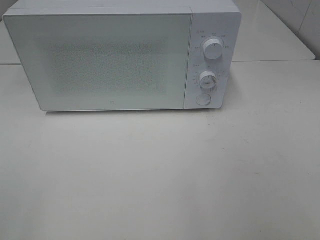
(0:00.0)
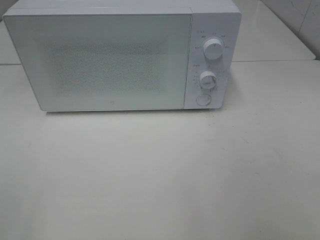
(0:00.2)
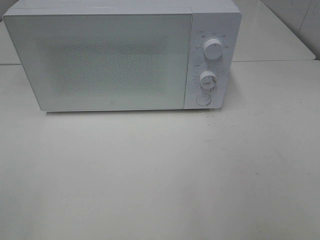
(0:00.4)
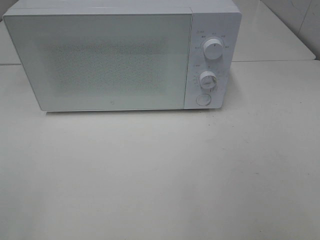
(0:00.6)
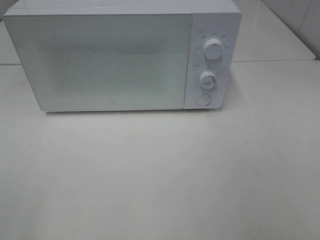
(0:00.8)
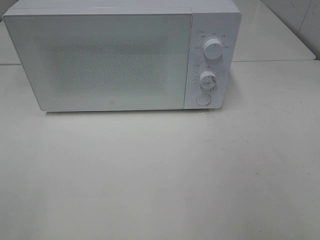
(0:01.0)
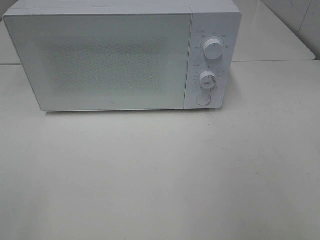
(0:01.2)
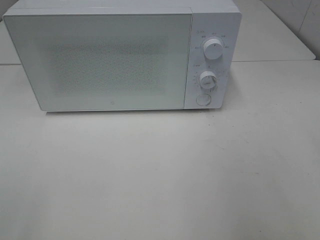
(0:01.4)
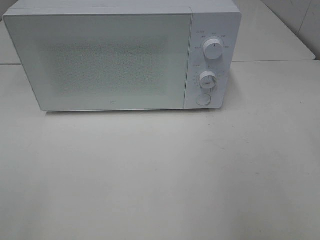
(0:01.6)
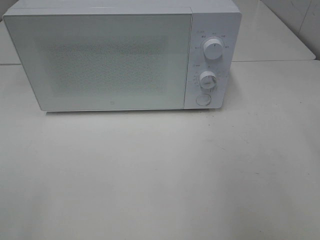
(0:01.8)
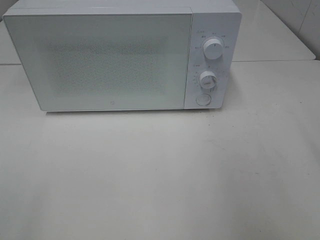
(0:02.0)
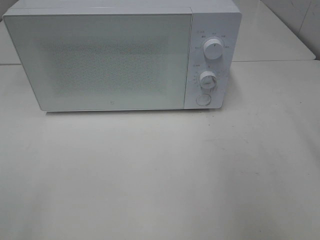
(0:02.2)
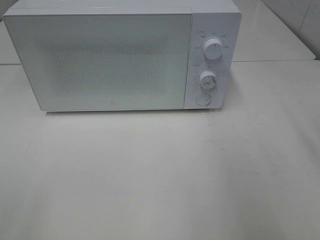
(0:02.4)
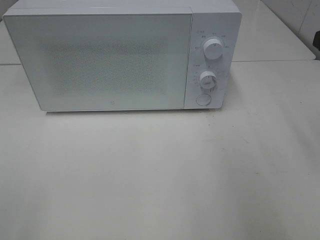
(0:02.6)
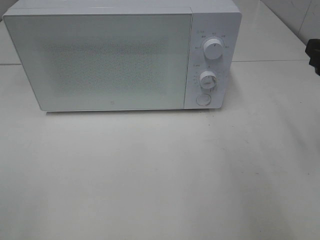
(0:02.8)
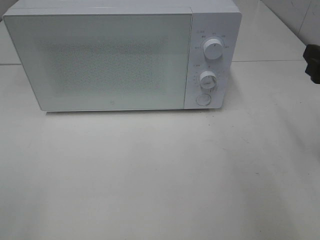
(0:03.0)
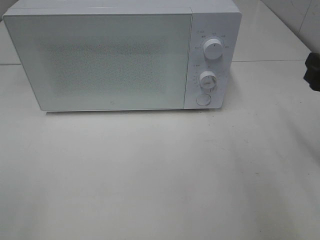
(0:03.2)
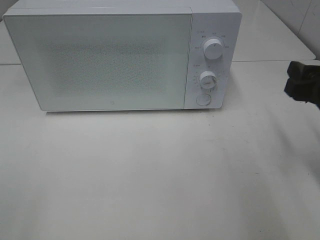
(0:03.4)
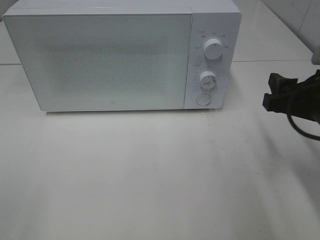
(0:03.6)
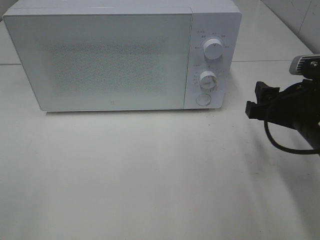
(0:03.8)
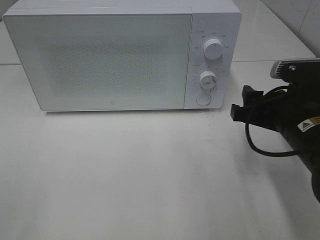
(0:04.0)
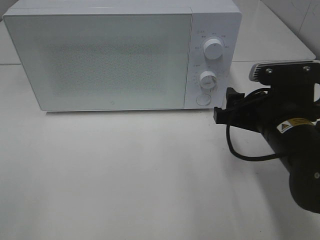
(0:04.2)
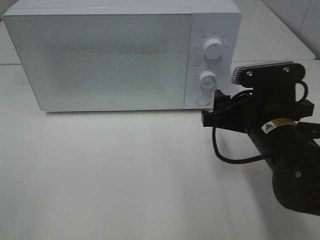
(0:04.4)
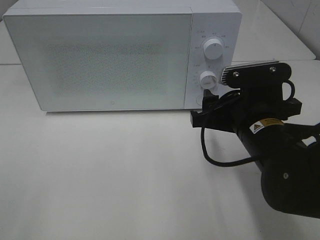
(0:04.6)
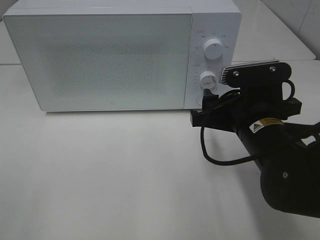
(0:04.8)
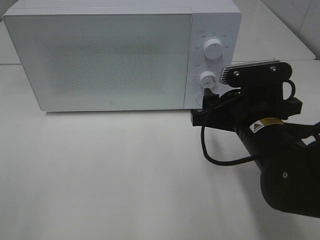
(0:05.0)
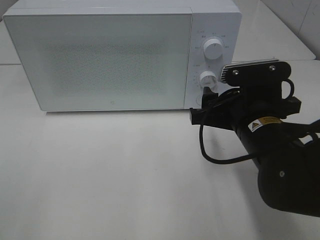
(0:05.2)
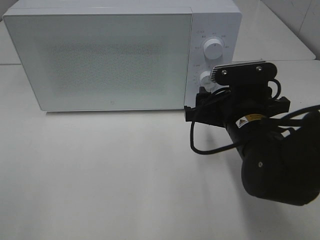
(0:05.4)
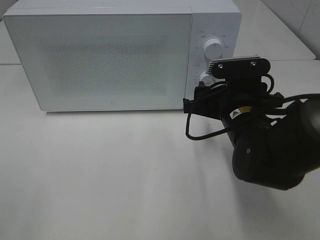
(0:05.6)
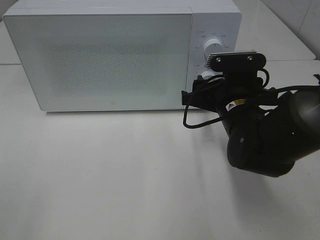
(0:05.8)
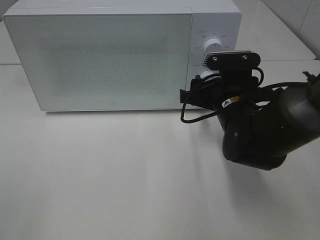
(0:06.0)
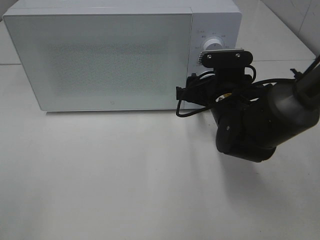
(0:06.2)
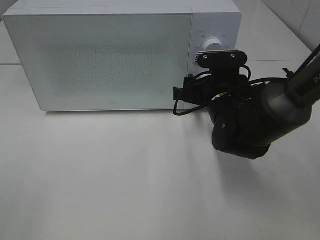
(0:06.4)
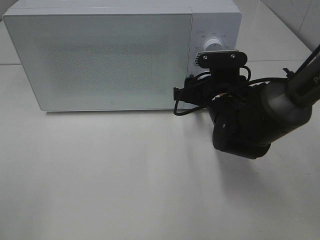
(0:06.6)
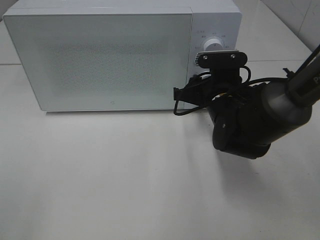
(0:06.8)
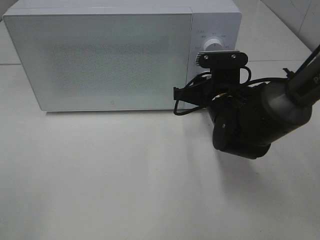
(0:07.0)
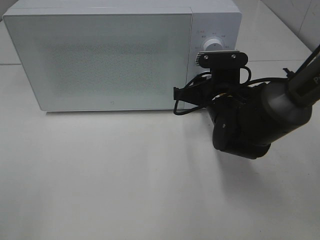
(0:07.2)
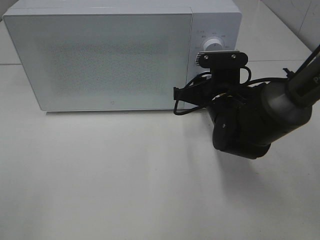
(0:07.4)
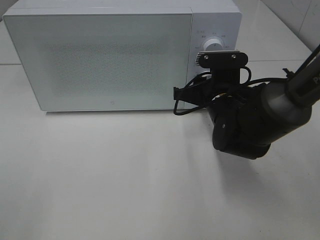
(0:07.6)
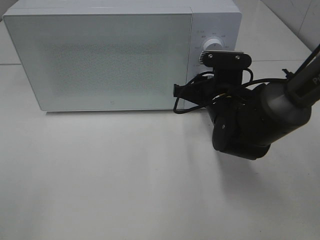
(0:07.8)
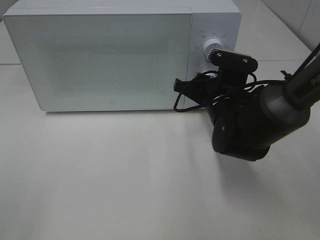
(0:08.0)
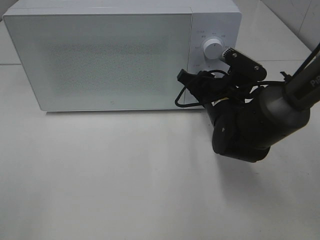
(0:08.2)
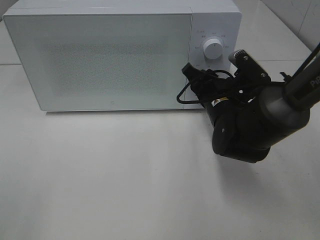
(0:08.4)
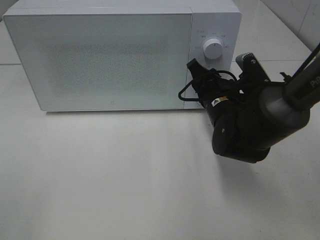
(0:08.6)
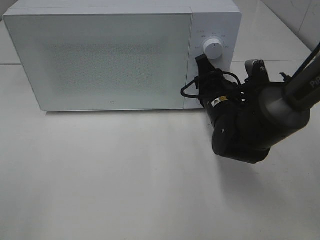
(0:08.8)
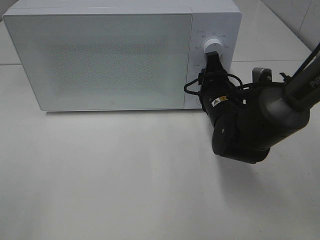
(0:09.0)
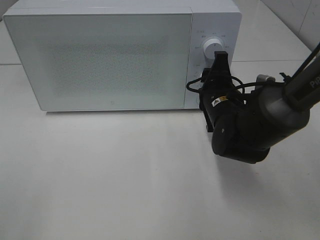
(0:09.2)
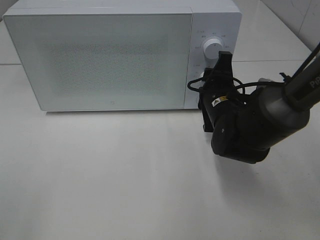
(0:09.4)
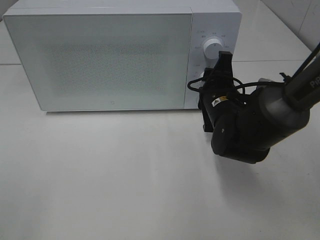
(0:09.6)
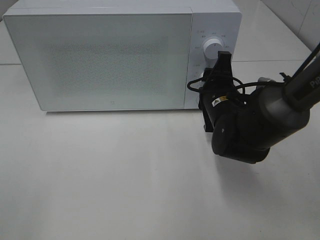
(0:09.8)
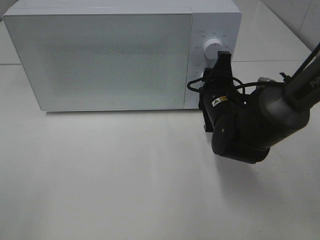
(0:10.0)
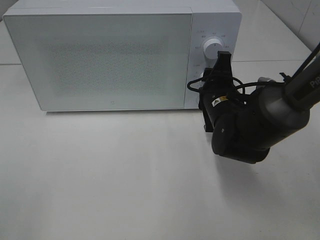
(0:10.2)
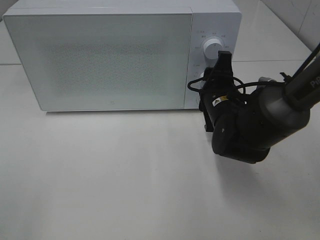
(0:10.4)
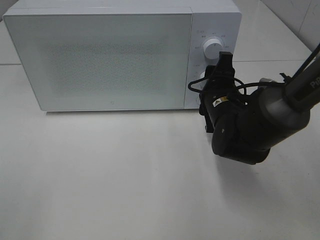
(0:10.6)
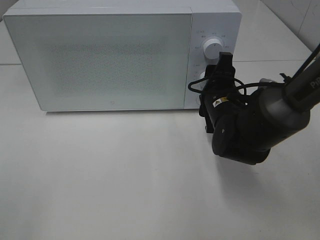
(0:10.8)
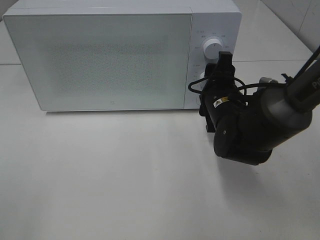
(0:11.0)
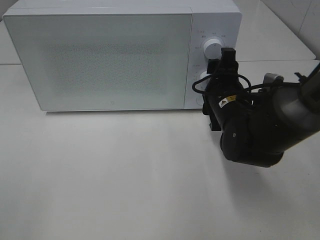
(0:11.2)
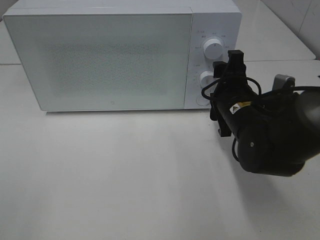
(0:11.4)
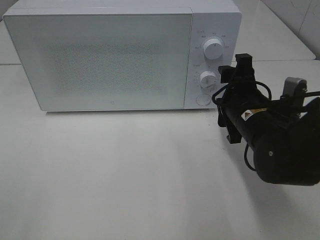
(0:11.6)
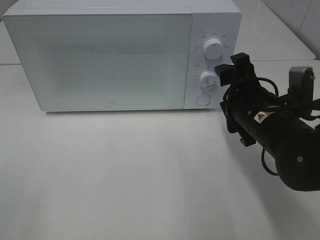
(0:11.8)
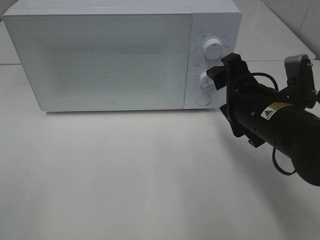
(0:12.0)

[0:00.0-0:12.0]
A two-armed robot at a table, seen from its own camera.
Task of the whole recording: Heat Sandwich.
Step, 0:00.0 to 0:11.4: Right hand: twist timer button.
0:01.6 to 0:03.0: The right gripper shifts some 15 cm forward and downward.
0:03.0 to 0:04.4: The right gripper travels to the left and downward by some 15 cm.
0:04.4 to 0:06.0: The right gripper travels forward by roughly 10 cm.
0:06.0 to 0:07.6: The right gripper closes up.
0:09.0 to 0:10.4: There are only small adjustments of the grippers.
0:10.4 to 0:12.0: The right gripper heads backward and upward, covering some 10 cm.

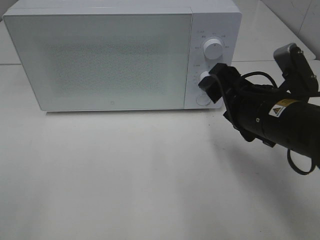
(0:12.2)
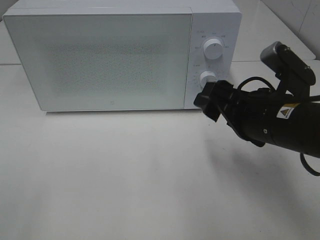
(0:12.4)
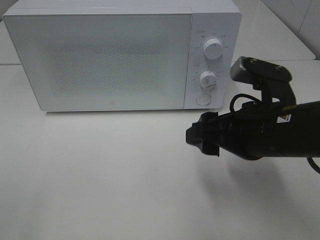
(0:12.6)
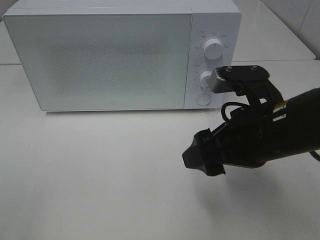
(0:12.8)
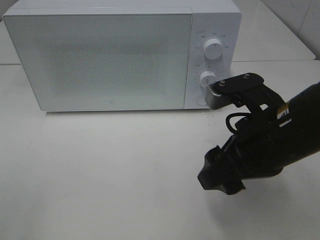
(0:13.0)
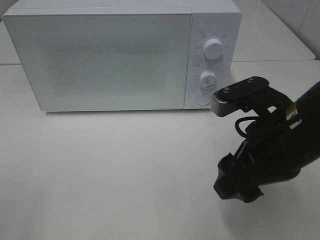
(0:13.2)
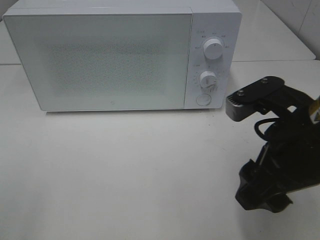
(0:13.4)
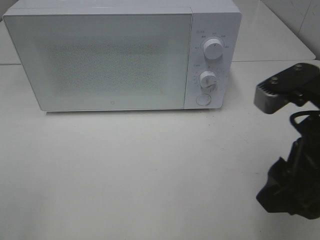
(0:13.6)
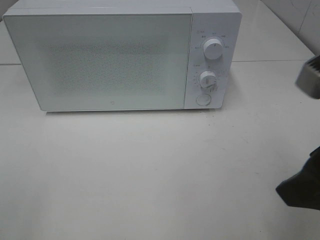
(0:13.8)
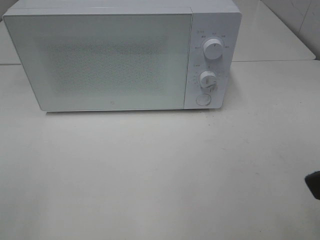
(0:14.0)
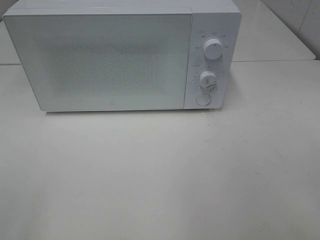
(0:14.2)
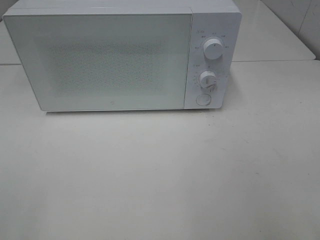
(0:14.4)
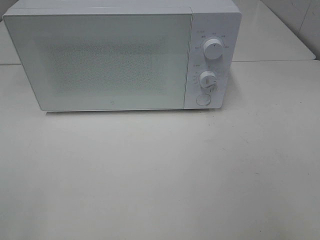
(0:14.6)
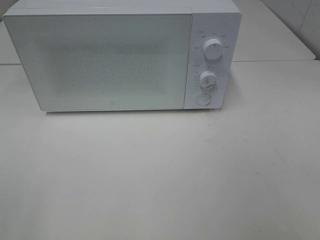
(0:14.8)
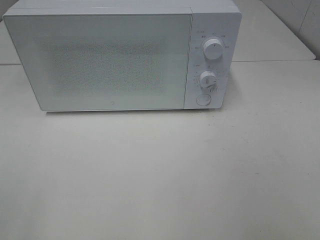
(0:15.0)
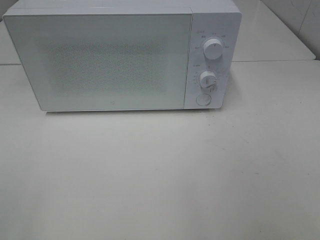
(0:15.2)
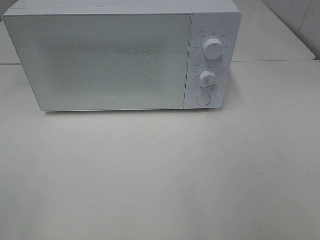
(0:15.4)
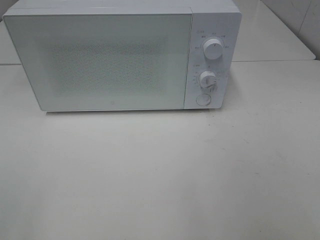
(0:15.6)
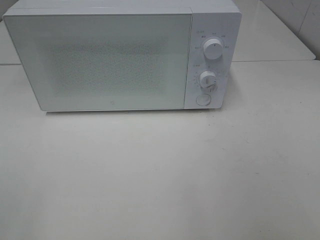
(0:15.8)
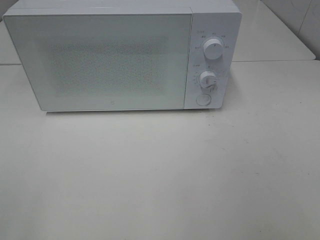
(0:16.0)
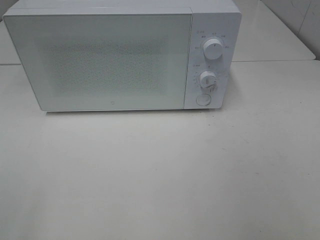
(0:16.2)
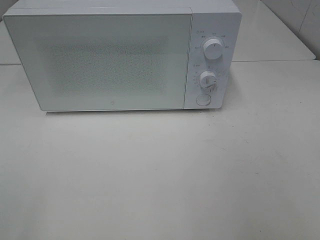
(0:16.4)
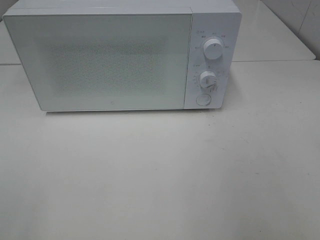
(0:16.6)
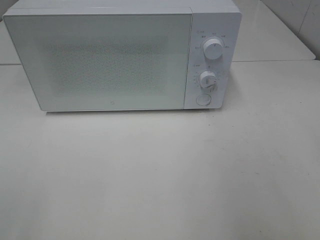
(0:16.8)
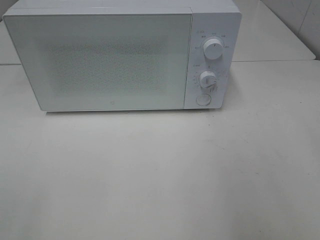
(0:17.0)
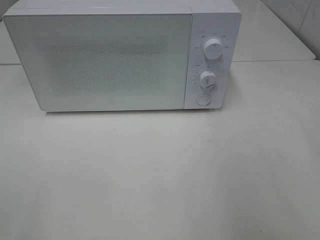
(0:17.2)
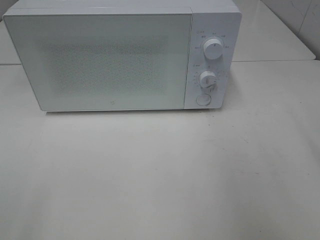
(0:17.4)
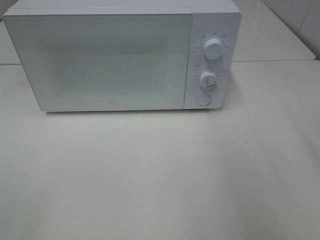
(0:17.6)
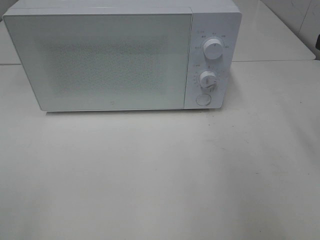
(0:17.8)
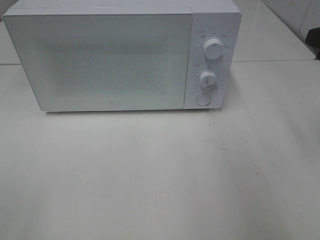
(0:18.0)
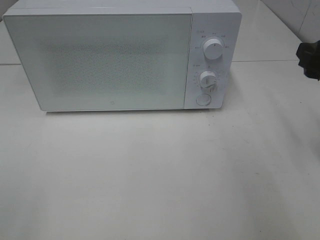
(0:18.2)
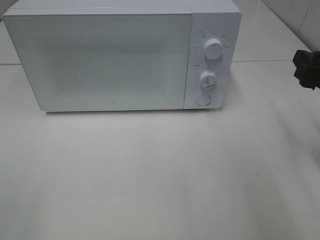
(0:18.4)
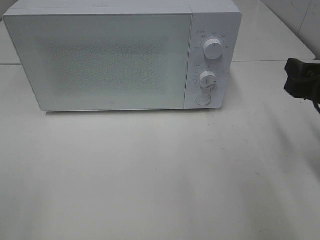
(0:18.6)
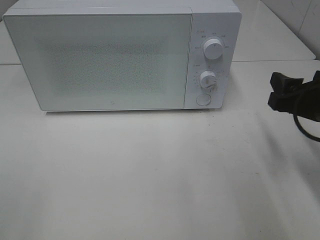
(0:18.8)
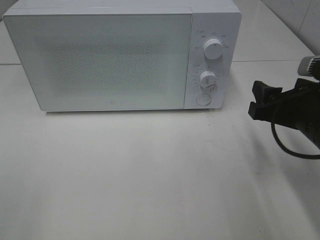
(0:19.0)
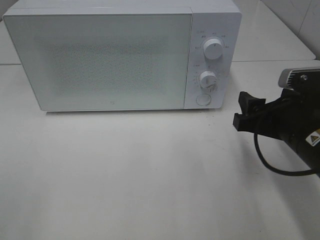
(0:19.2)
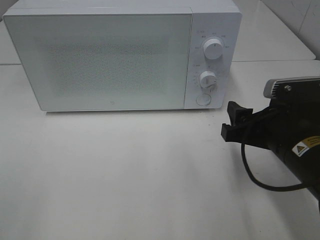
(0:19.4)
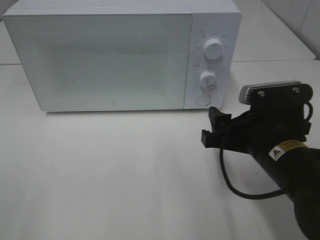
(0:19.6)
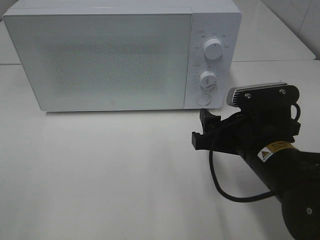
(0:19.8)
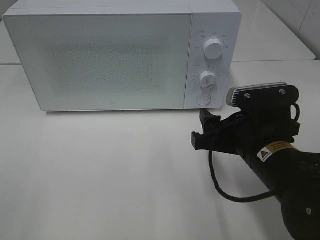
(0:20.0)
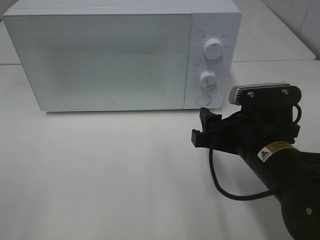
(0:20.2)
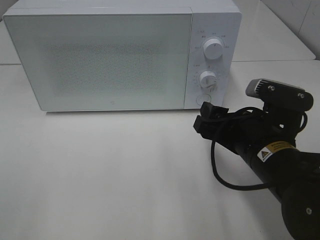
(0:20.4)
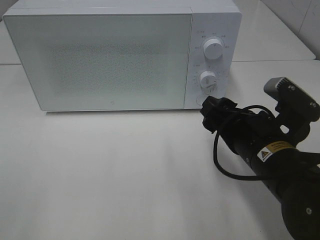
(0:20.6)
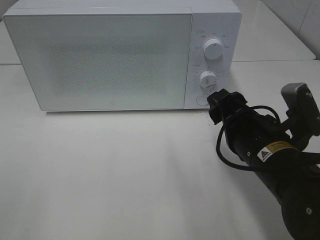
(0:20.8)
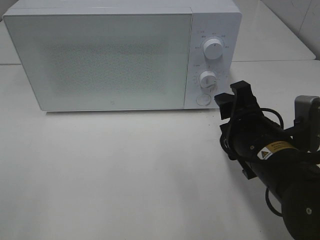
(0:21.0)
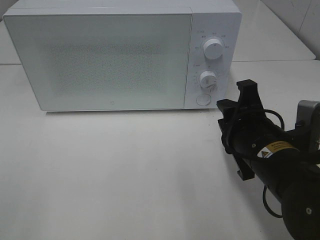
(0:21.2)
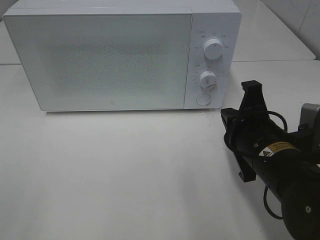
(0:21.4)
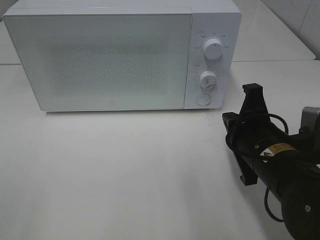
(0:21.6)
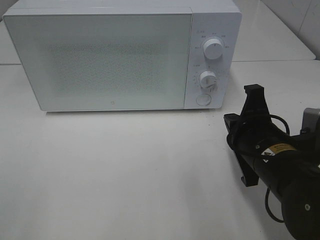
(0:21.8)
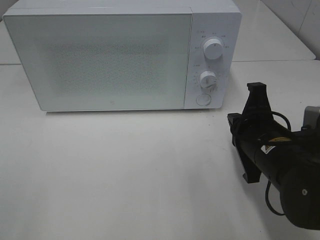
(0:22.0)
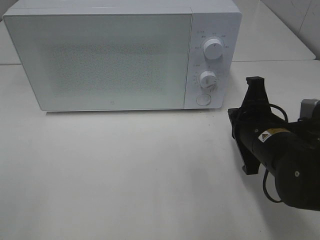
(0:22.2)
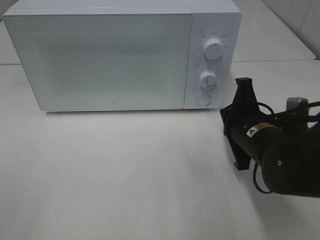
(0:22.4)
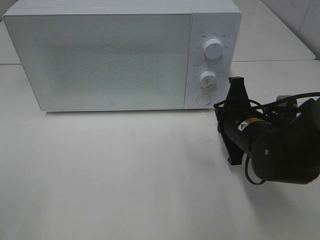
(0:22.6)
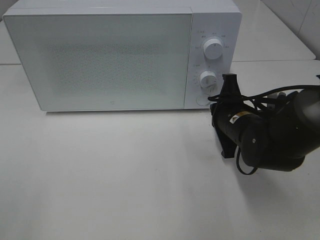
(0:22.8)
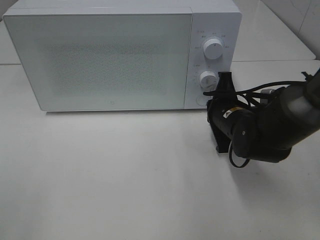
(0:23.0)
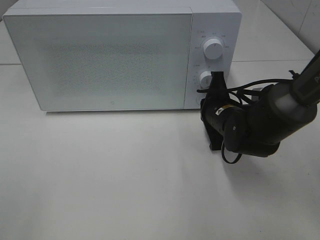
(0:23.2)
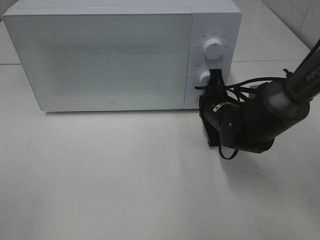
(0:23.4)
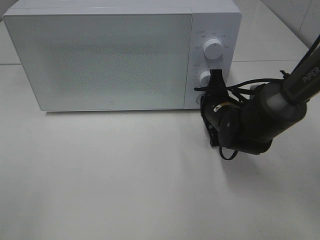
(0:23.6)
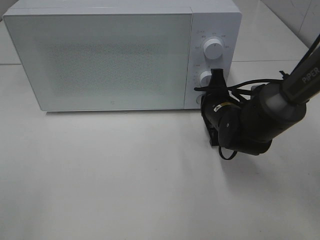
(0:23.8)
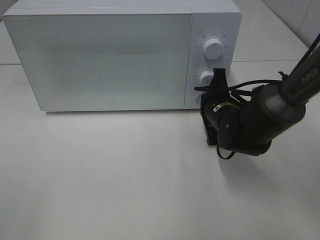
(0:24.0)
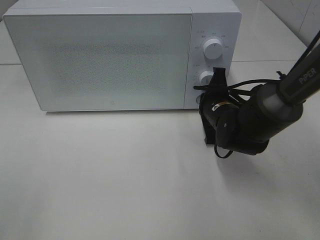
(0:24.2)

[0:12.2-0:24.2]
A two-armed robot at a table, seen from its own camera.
Task of the whole recording: Heat Sandwich.
0:12.2 to 0:13.8: The right gripper is displaced backward and upward by some 15 cm.
0:13.8 to 0:15.2: The right gripper shifts some 15 cm backward and to the right.
0:16.6 to 0:18.2: The right gripper travels forward and downward by roughly 20 cm.
0:18.2 to 0:19.8: The right gripper is displaced to the left and downward by about 15 cm.
0:19.8 to 0:21.2: The right gripper closes up.
0:21.2 to 0:22.6: The right gripper moves forward, roughly 10 cm, and closes.
0:22.6 to 0:24.2: The right gripper heads forward, covering about 5 cm.
